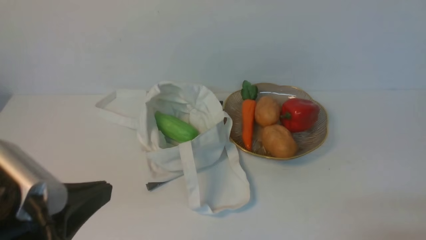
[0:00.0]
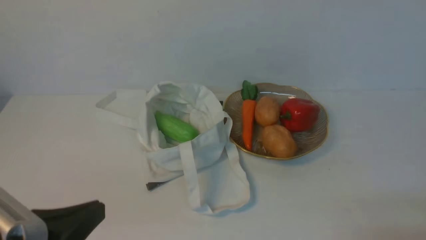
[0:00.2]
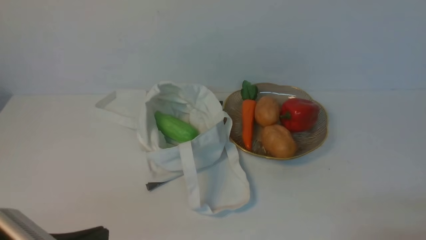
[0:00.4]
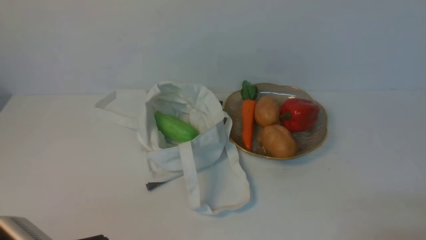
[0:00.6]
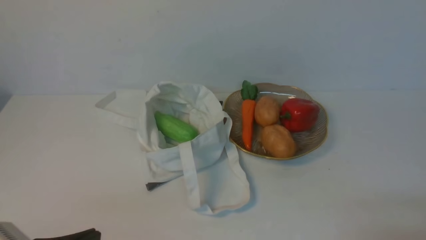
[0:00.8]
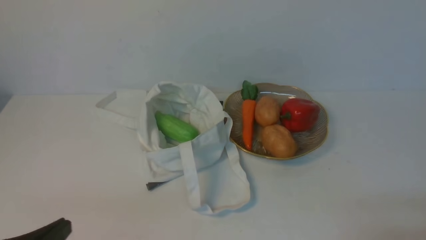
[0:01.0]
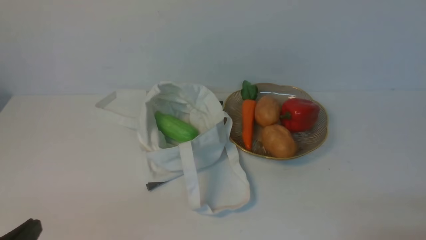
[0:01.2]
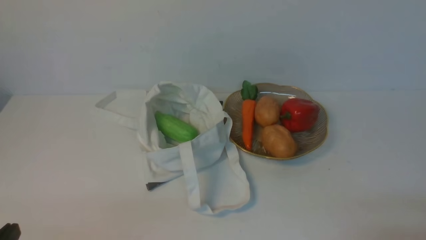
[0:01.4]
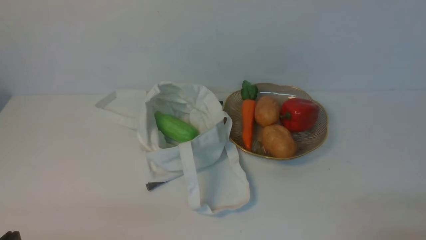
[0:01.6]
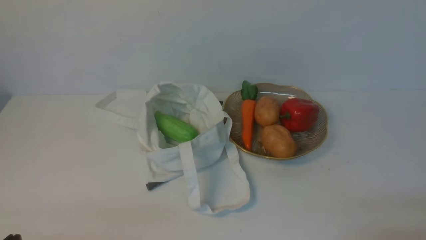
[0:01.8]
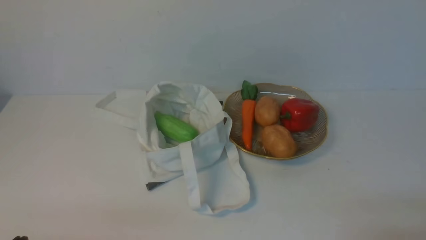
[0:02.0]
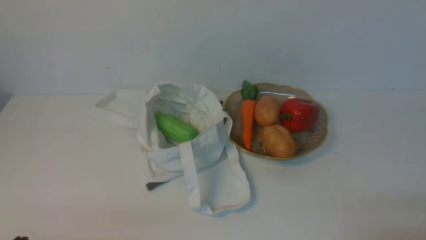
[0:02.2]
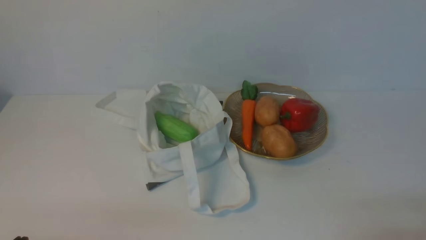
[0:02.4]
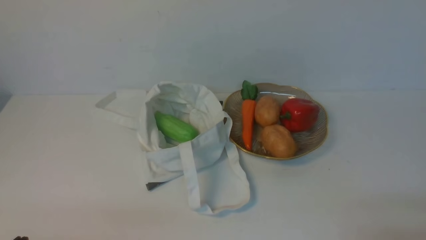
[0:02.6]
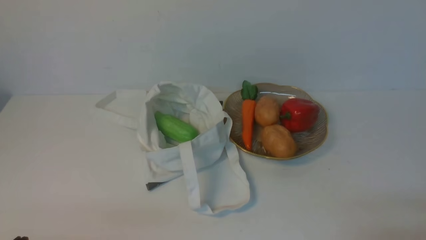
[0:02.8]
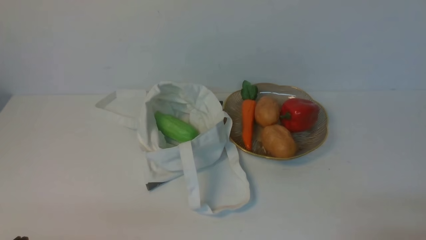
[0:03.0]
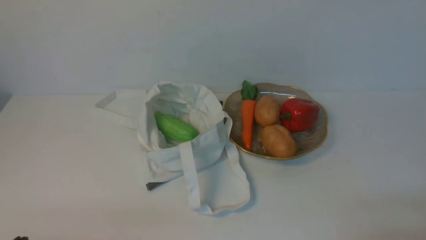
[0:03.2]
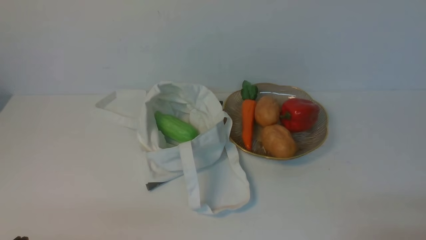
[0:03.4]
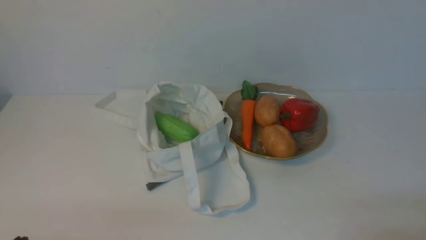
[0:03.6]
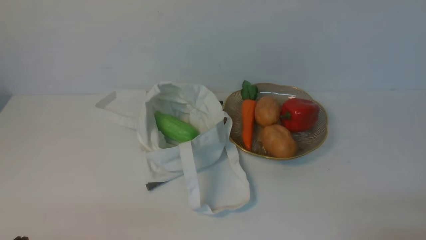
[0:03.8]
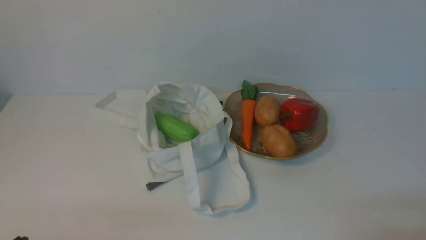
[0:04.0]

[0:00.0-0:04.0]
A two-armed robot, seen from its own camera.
Task of the whole recording: take vegetables from cloth bag on white table place on plate.
0:00.0 to 0:01.4: The left gripper heads downward and to the left, covering some 15 cm.
0:01.4 to 0:04.0: Neither gripper changes place.

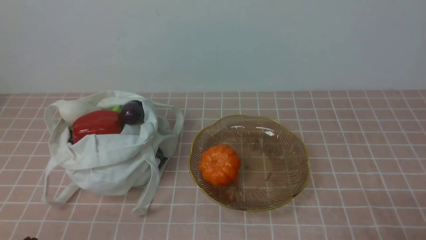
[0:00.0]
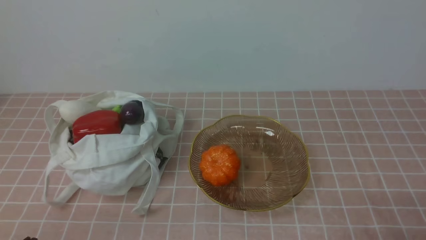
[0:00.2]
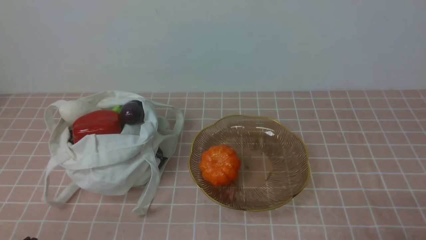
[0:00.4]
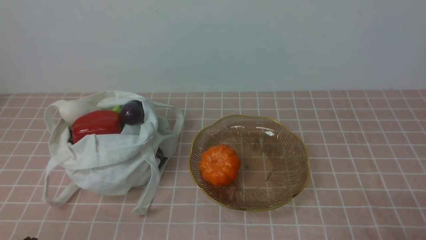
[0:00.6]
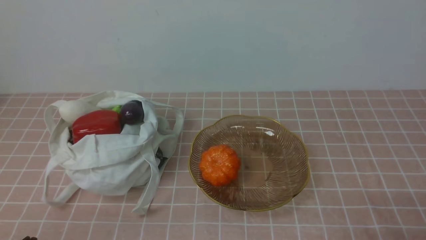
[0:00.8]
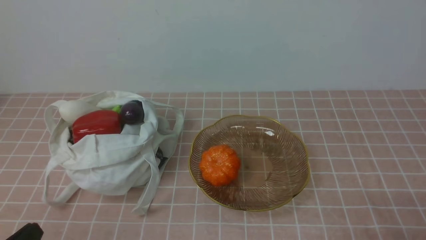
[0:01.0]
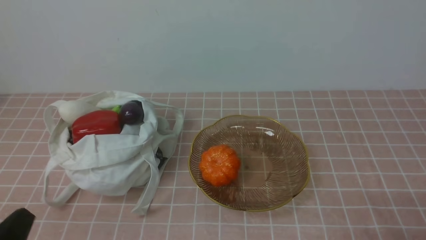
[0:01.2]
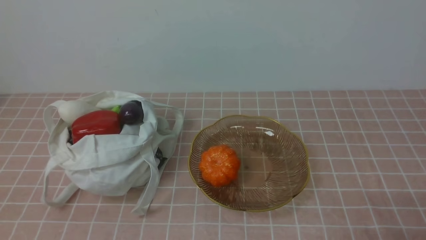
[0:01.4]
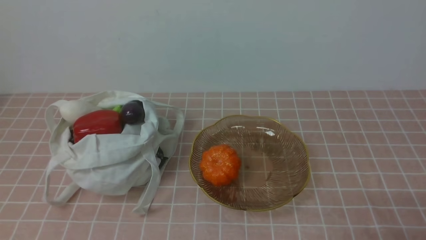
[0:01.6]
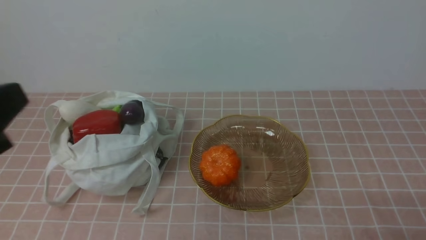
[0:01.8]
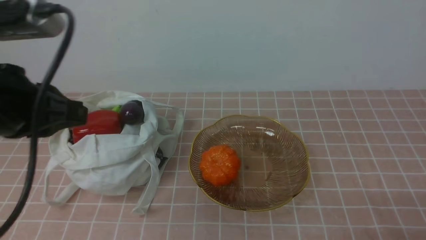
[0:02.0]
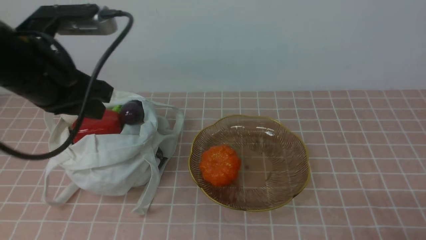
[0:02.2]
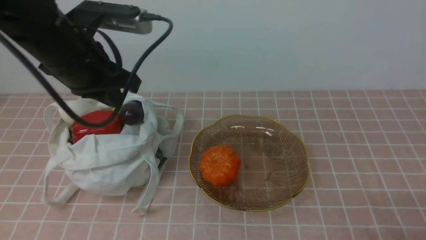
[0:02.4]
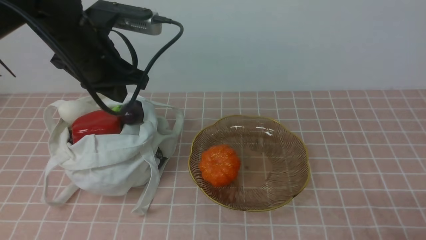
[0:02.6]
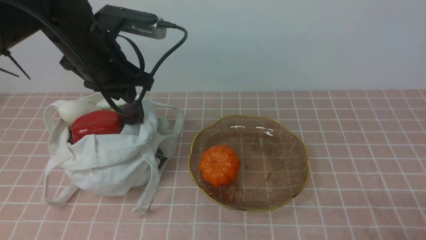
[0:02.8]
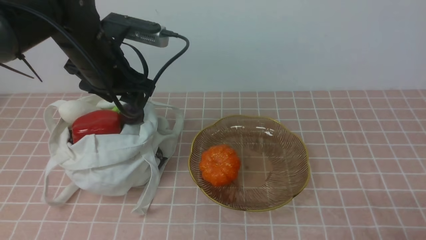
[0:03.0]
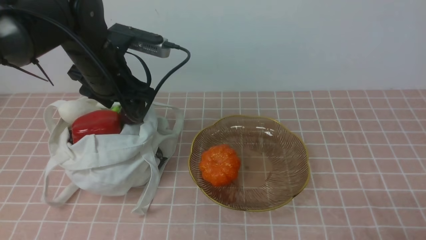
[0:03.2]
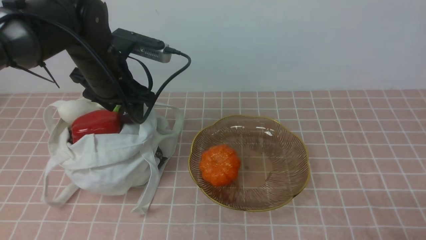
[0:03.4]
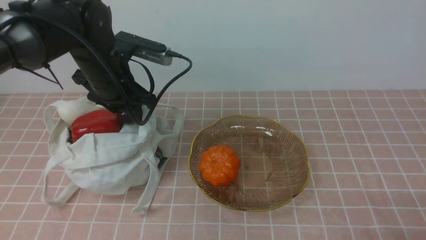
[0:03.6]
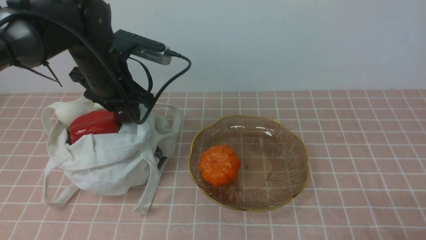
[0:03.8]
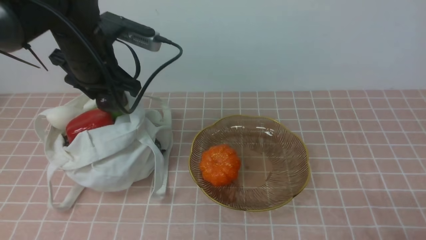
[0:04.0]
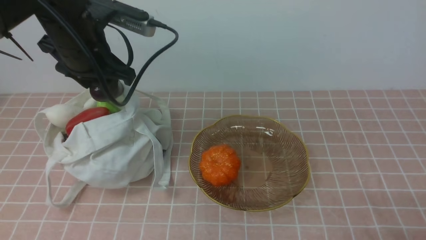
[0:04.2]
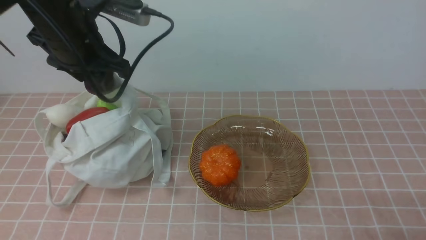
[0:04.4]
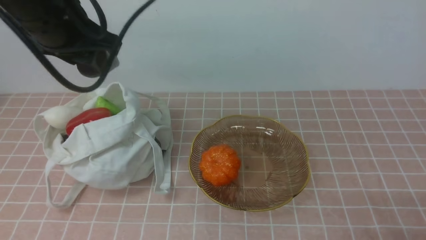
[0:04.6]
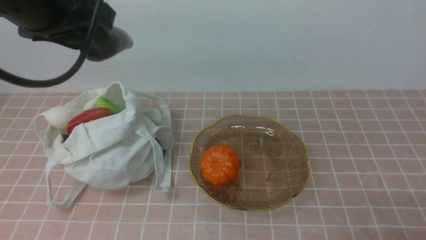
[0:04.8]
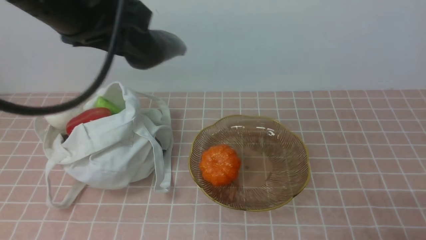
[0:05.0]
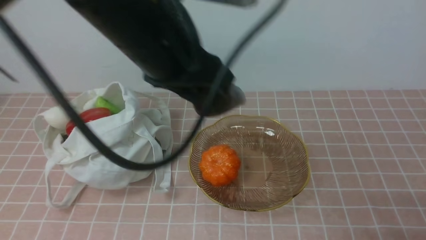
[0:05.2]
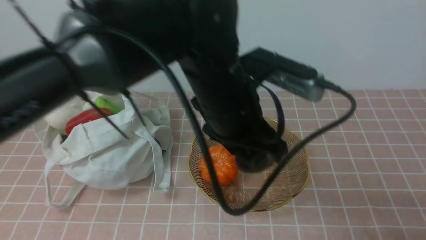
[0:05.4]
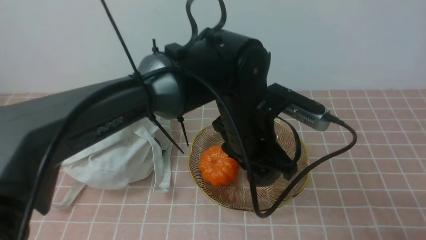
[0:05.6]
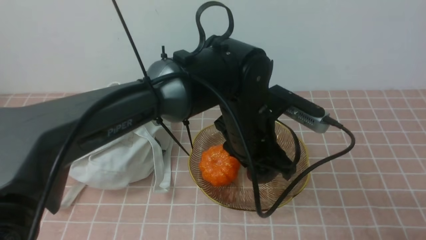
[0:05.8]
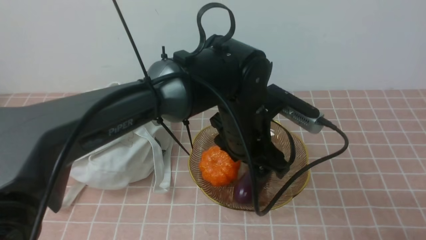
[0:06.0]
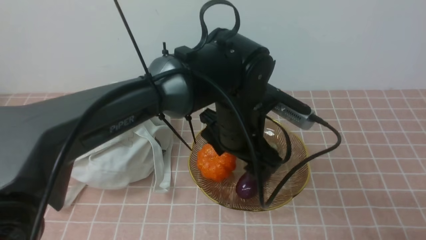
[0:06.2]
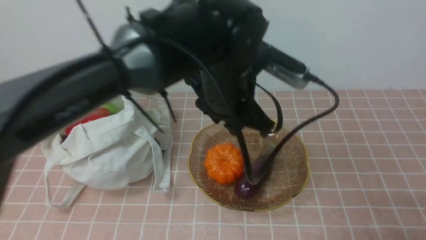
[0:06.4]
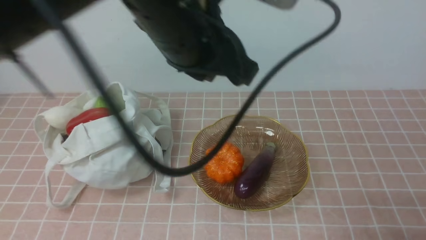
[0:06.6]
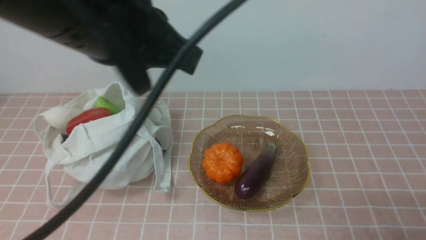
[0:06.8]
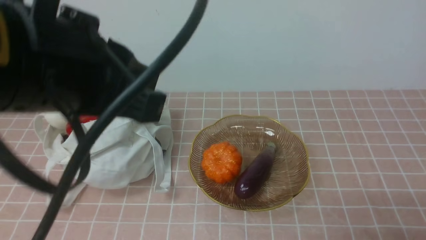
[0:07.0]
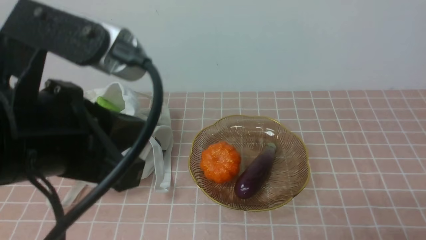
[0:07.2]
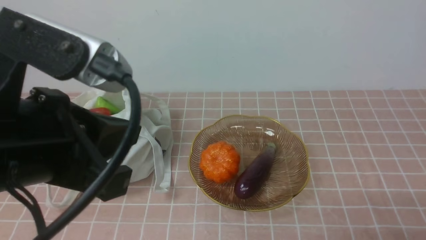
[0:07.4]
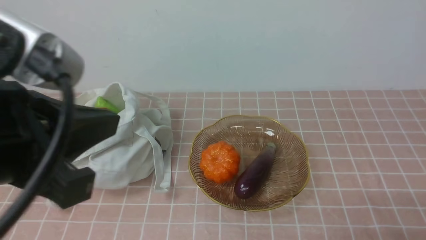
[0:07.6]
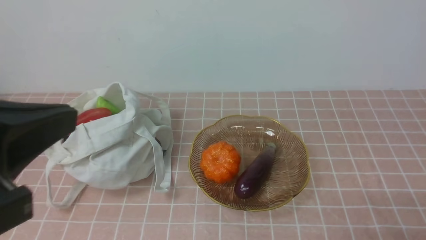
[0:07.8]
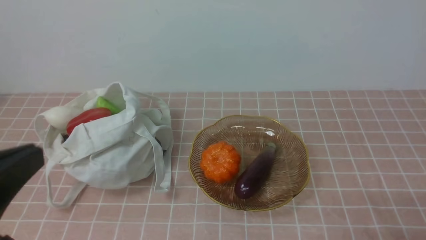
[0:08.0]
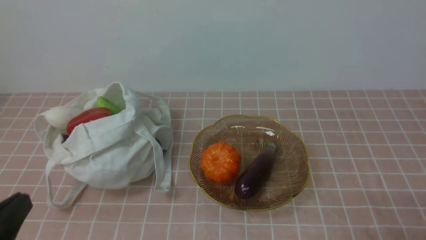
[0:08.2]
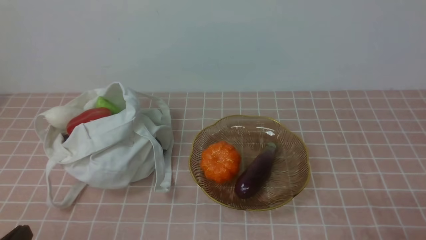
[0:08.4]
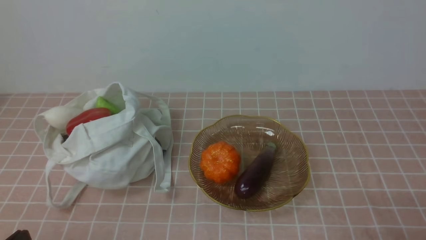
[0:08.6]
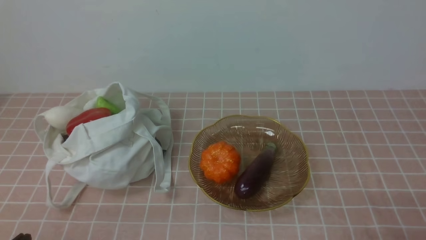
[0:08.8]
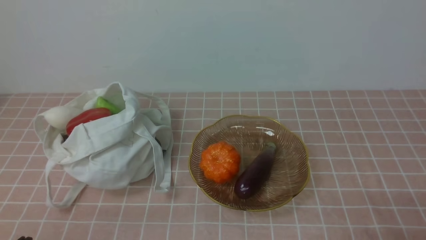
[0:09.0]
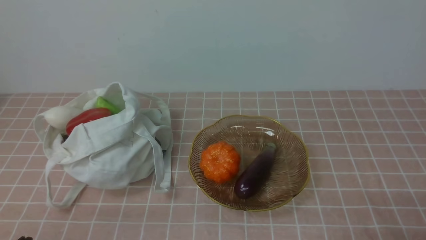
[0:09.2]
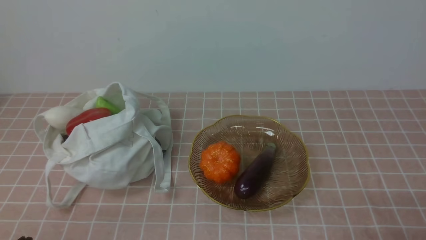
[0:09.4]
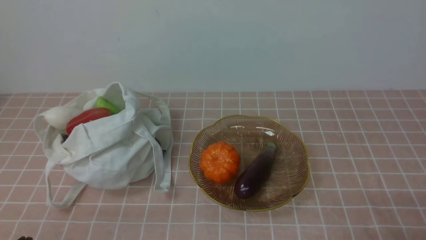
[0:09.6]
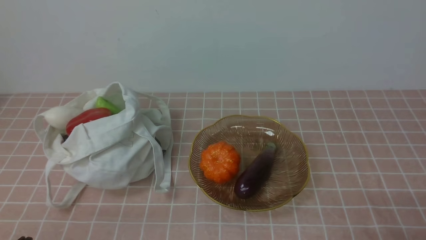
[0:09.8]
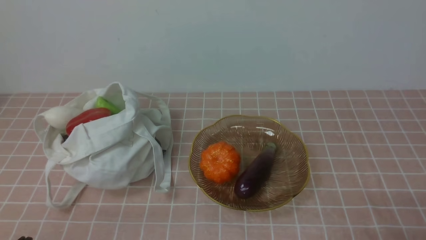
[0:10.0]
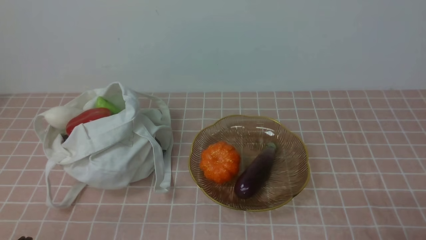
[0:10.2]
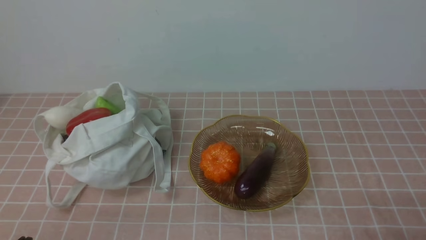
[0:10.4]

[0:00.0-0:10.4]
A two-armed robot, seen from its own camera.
Task of the whole recording: take vegetables from bag on pink coffee tablecloth place on plate.
Step, 0:00.0 to 0:03.6: Grasp the eggplant with left gripper.
Step, 0:03.8 to 0:06.4: Place the eggplant on the plate with left gripper.
0:01.4 to 0:03.0: The left gripper goes approximately 30 cm forward, and opens up.
0:03.0 to 0:04.4: The left gripper shifts by approximately 5 cm.
0:04.4 to 0:06.0: The left gripper goes some 25 cm to the right and downward.
0:06.0 to 0:07.4: The left gripper is displaced to the left, backward and upward by roughly 30 cm, and closes up.
0:07.4 to 0:09.0: The left gripper moves downward and to the left, some 25 cm.
0:09.0 to 0:10.4: The two grippers keep their place.
